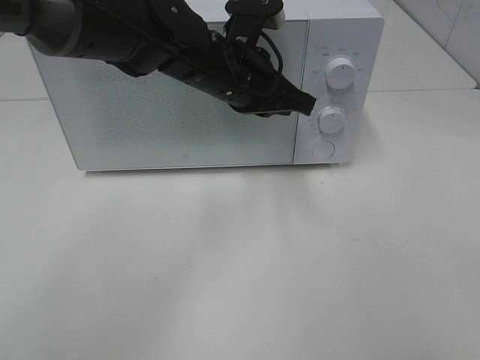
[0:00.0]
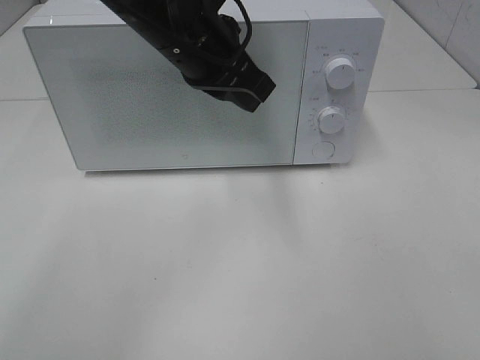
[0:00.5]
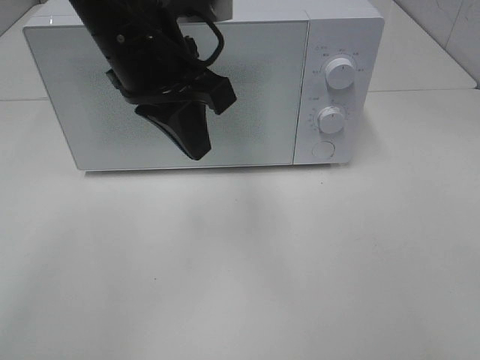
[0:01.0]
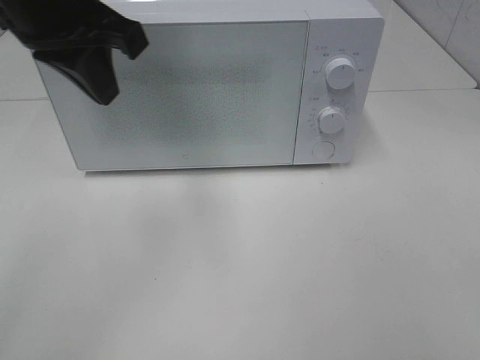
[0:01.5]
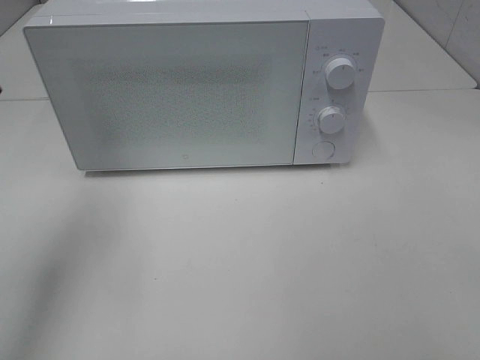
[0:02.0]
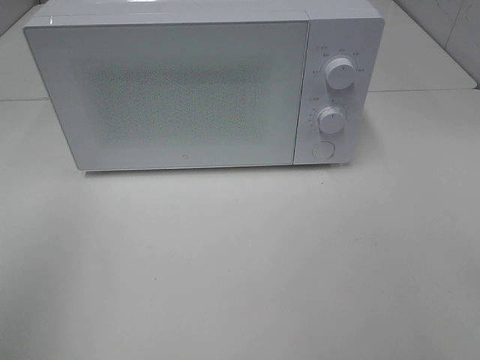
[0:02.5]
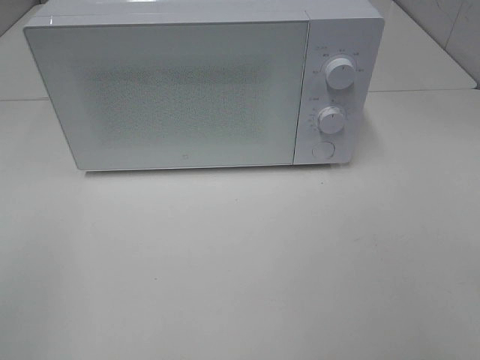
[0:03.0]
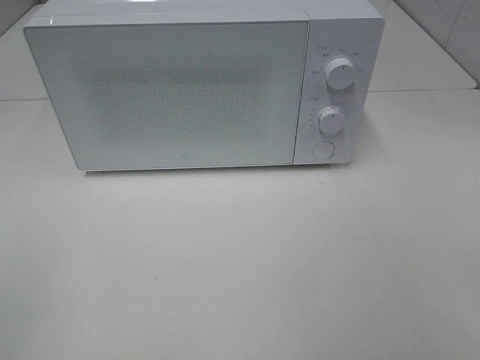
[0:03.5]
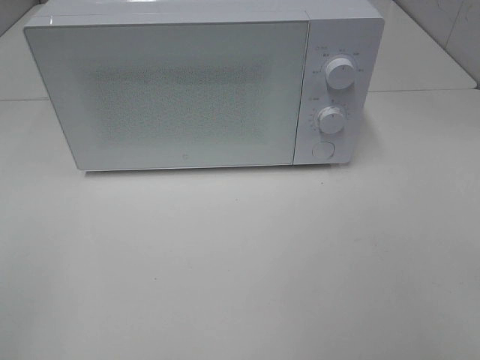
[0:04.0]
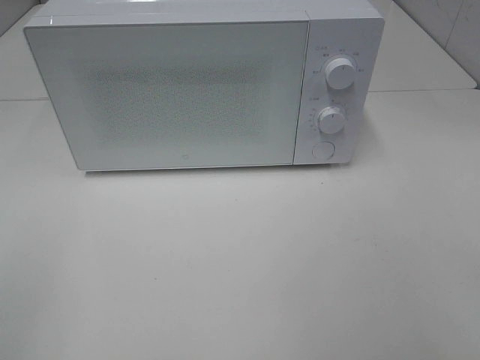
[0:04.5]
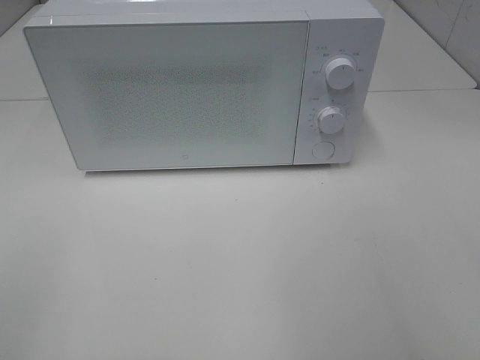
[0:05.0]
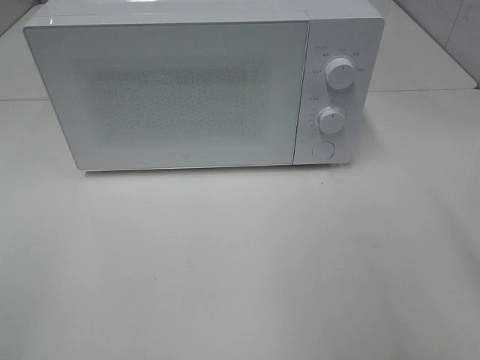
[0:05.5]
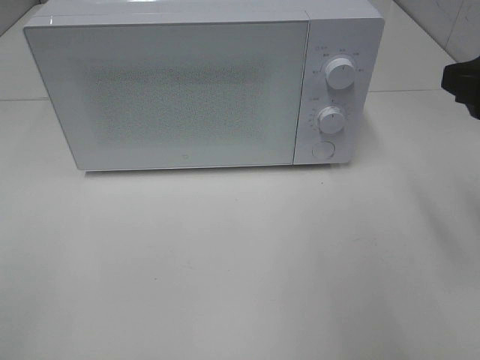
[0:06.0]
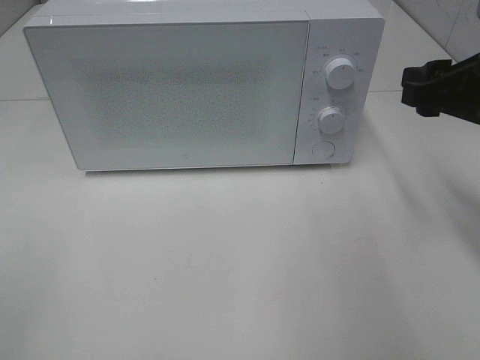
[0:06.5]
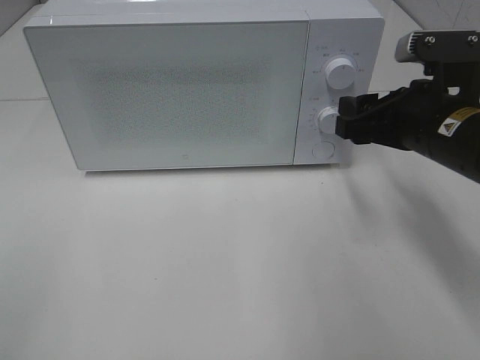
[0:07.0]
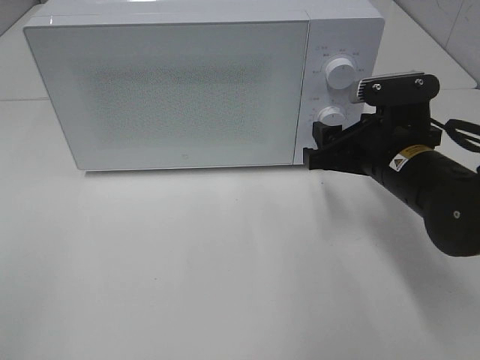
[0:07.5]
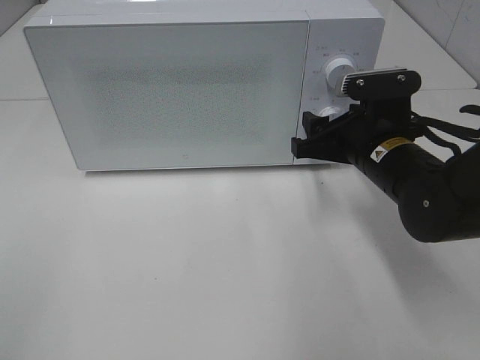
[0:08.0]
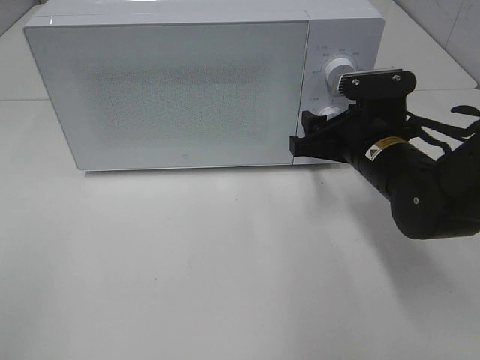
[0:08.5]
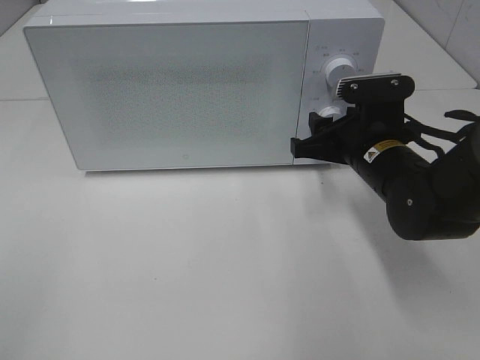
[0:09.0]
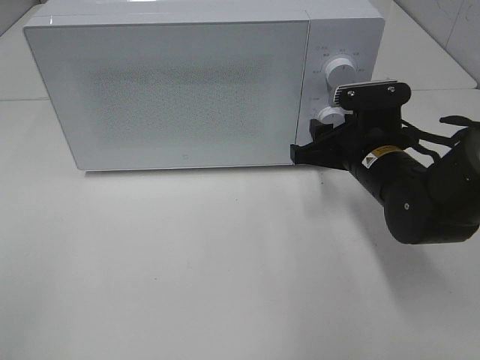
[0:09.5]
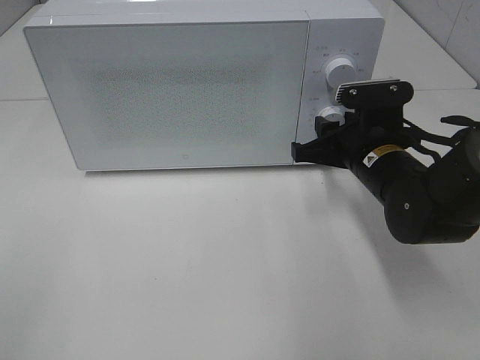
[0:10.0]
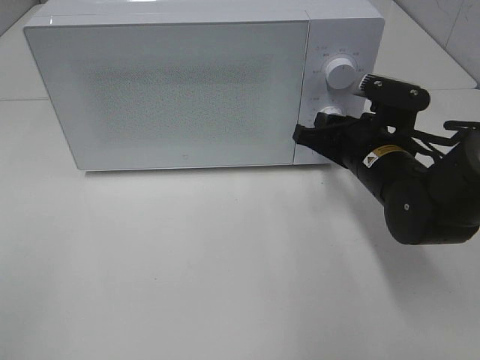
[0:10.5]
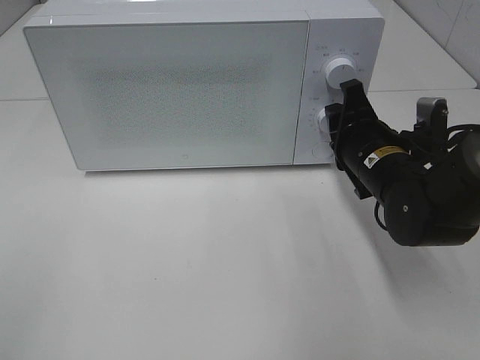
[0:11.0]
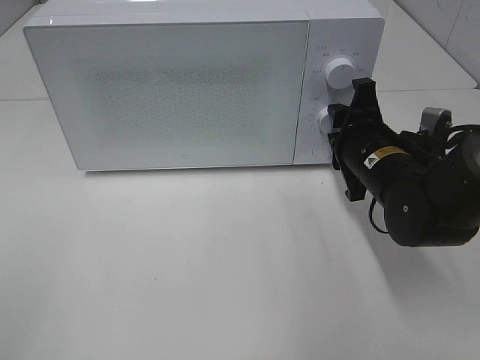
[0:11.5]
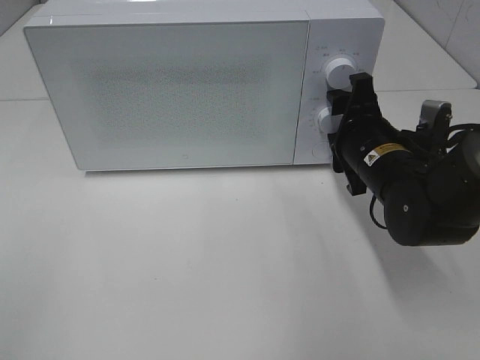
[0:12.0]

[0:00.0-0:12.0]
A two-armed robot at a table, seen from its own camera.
Task of the whole recording: Heat the burger.
0:00.0 to 0:02.0: The left gripper heads to the left, backward and upward, covering some 30 cm.
0:02.0 to 0:04.0: The left gripper goes some 25 cm backward.
0:04.0 to 0:06.0: The right gripper heads forward, covering approximately 20 cm.
0:06.0 to 0:08.0: The right gripper travels downward, to the left and forward by approximately 20 cm.
0:08.0 to 0:10.0: There are only small adjustments of the grippers.

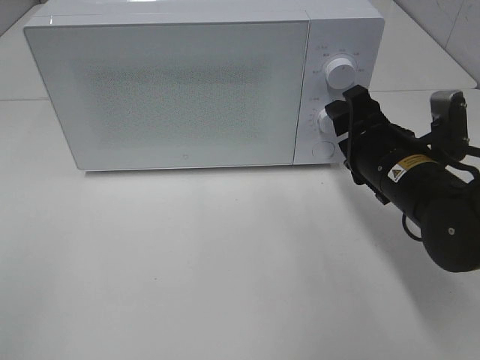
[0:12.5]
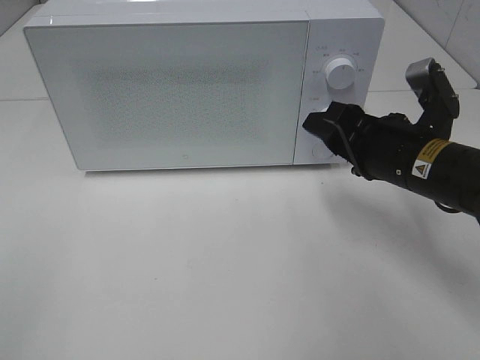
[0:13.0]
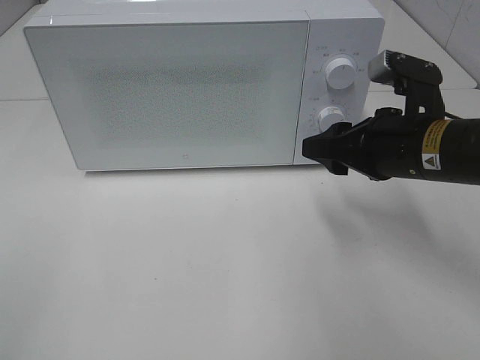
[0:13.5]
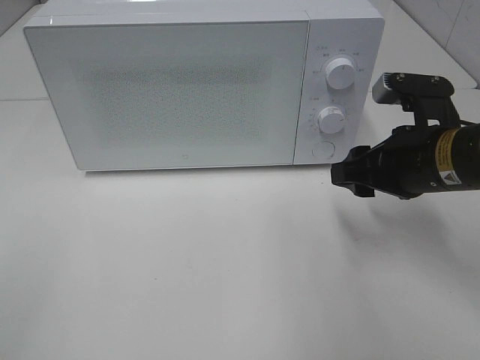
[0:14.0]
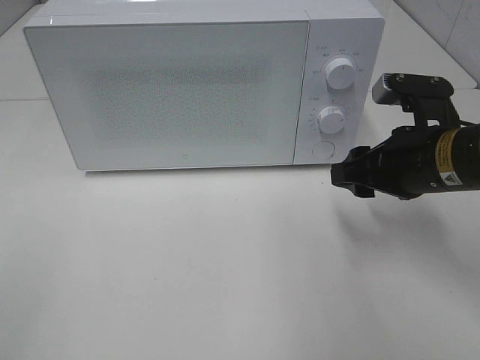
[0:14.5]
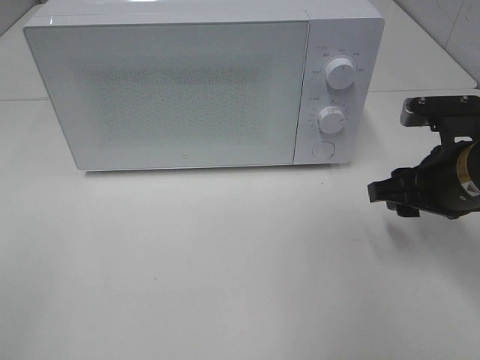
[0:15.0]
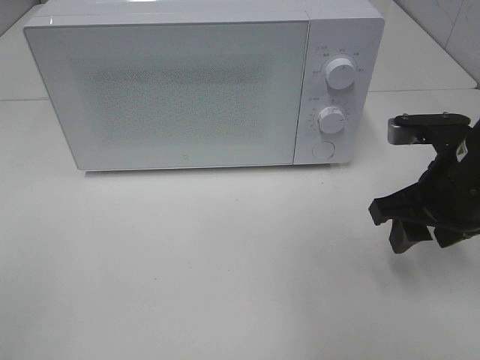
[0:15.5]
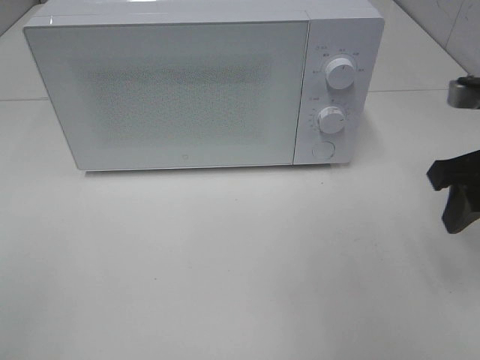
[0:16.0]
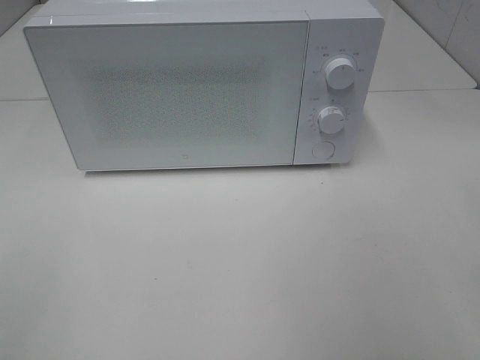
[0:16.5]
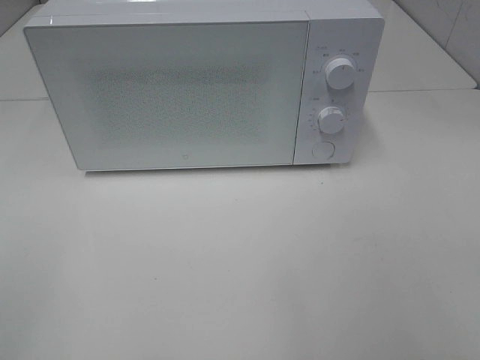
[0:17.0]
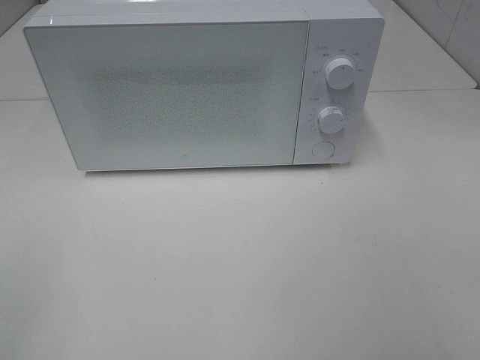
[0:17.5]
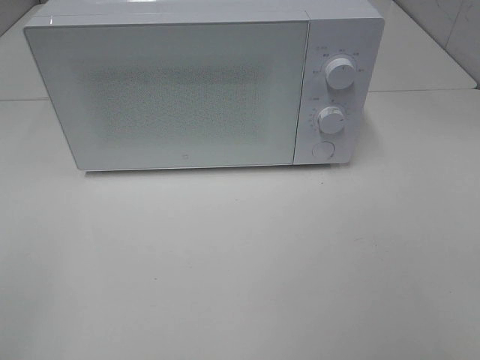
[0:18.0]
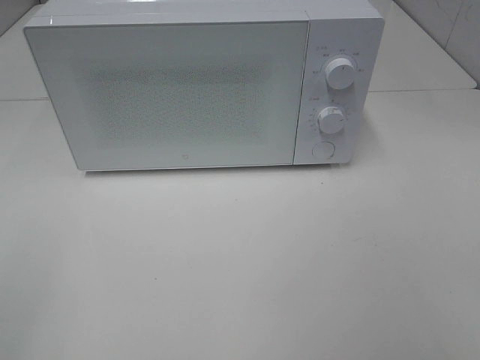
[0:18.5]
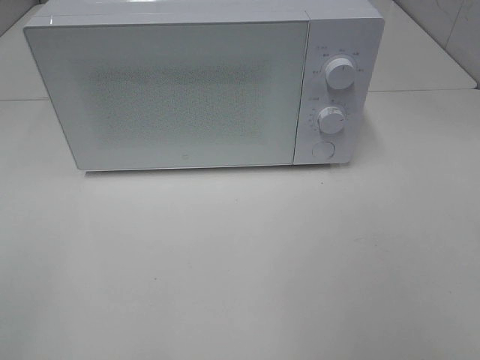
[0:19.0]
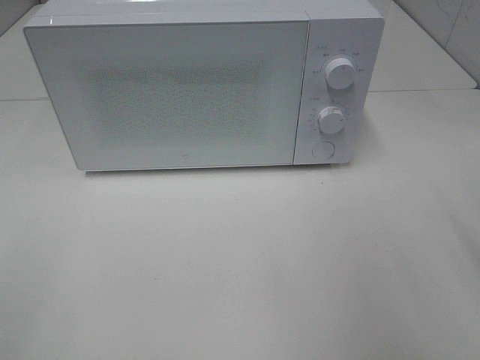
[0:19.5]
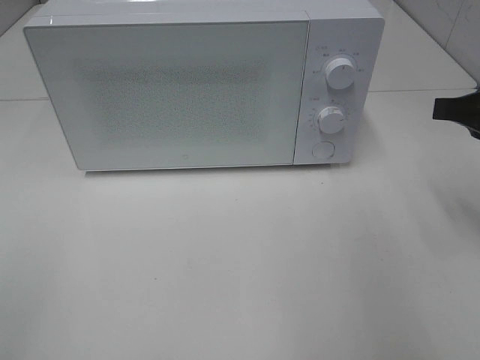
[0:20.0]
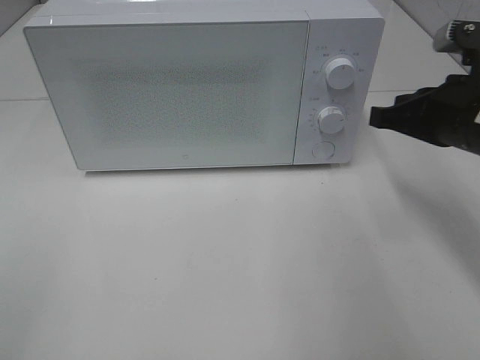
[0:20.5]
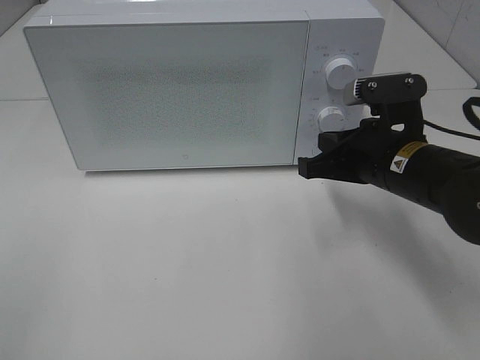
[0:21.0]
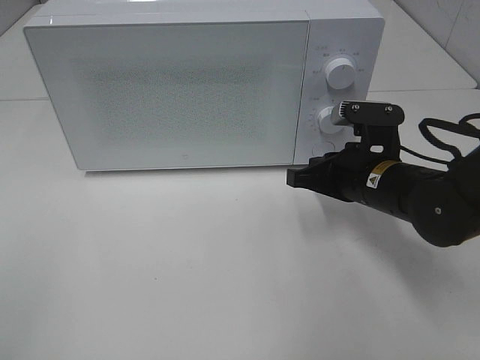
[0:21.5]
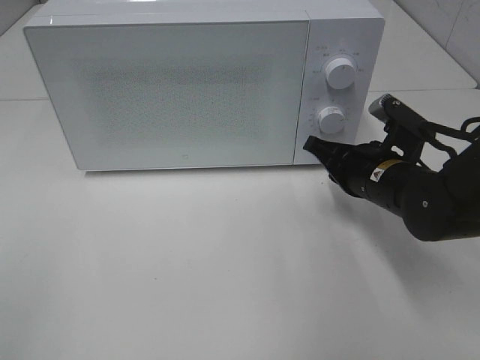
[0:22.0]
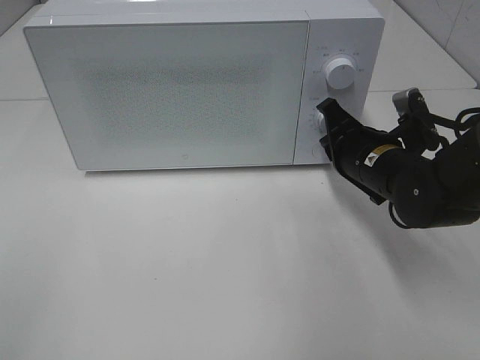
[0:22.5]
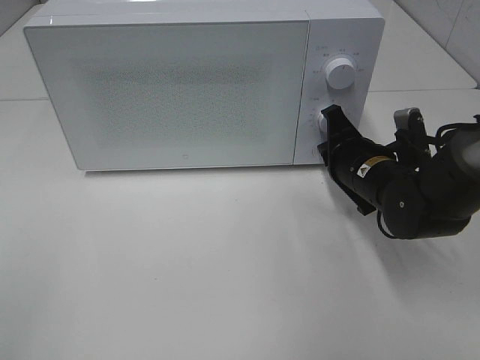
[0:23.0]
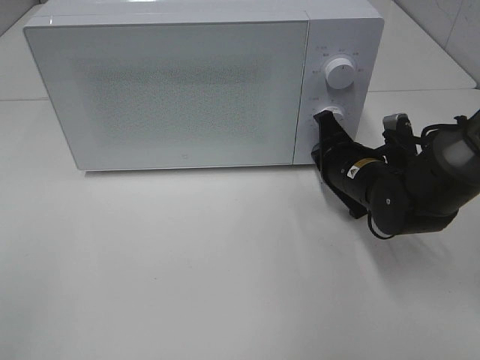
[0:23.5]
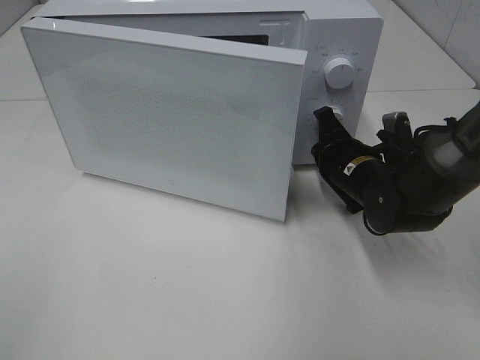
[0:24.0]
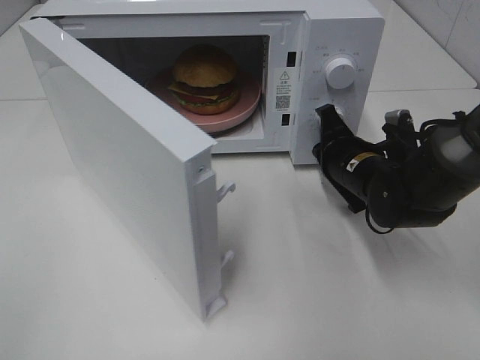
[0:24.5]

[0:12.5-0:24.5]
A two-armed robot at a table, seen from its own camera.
Task of the whole recording: Heat the burger.
0:14.5 to 0:16.5: The right gripper travels backward, upward and to the right by approximately 20 cm.
0:18.5 to 0:20.5: The right gripper heads forward, covering about 30 cm, and closes.
0:20.5 to 0:22.5: The right gripper goes approximately 10 cm downward and to the left.

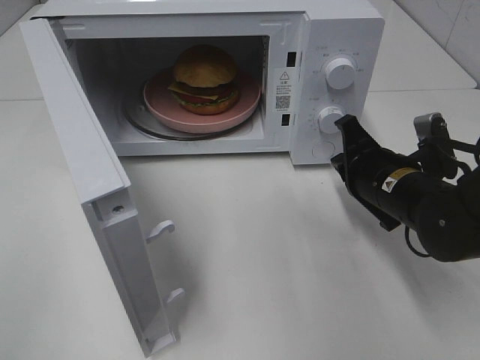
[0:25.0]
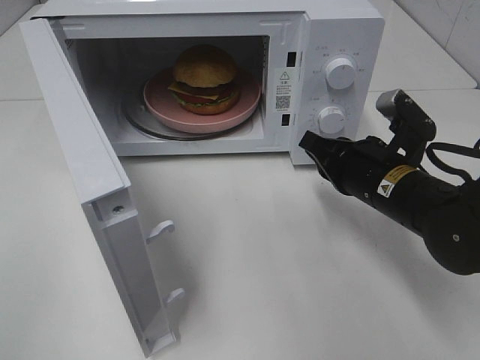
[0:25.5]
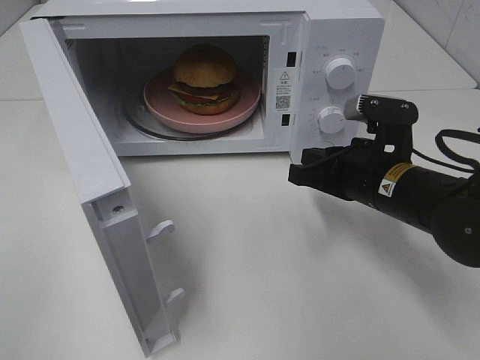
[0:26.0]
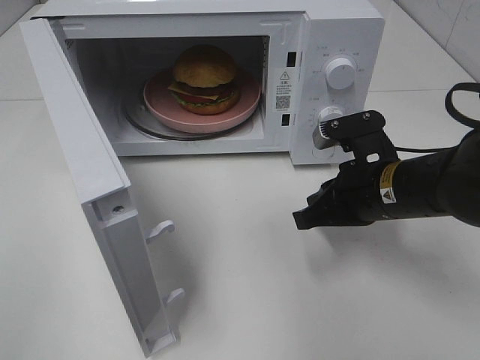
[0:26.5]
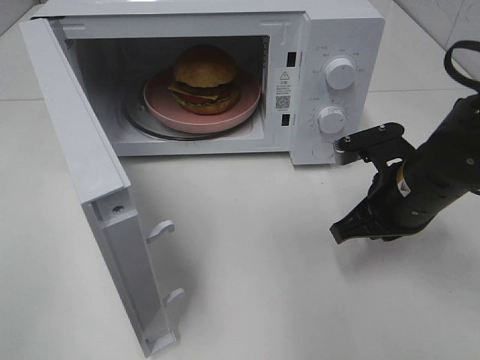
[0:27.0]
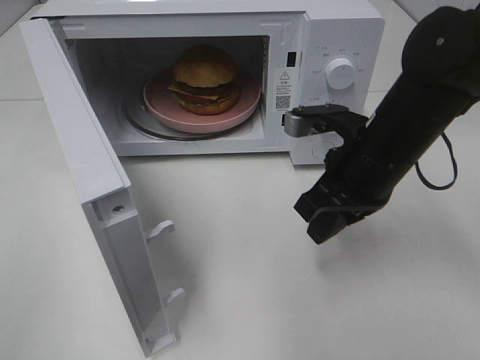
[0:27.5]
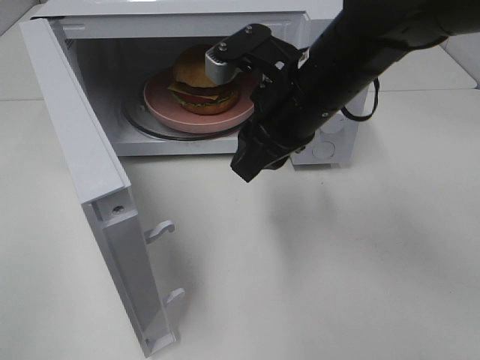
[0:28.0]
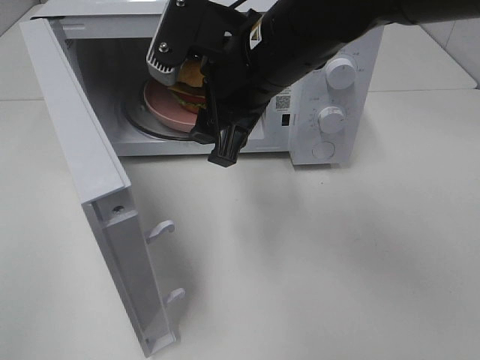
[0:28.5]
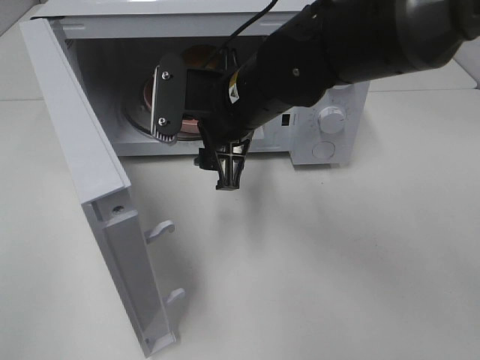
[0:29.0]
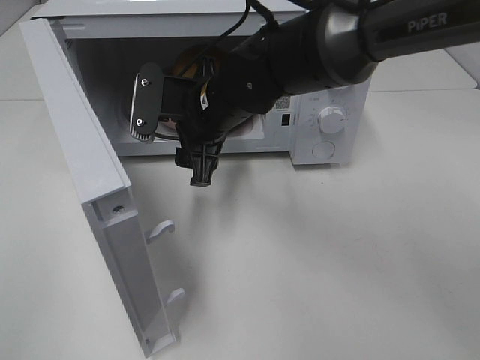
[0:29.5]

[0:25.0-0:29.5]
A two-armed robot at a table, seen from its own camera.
Task of the whole recording: Heat the burger.
0:27.0 to 0:29.5: The right gripper moves to the left, roughly 20 cm, and opens its fingers.
